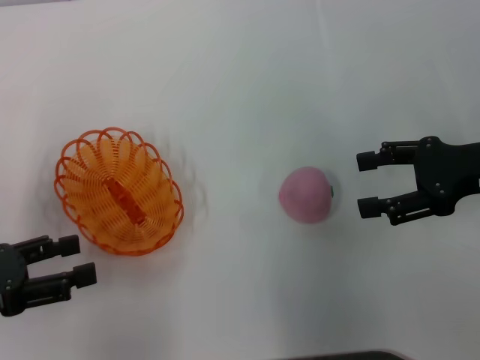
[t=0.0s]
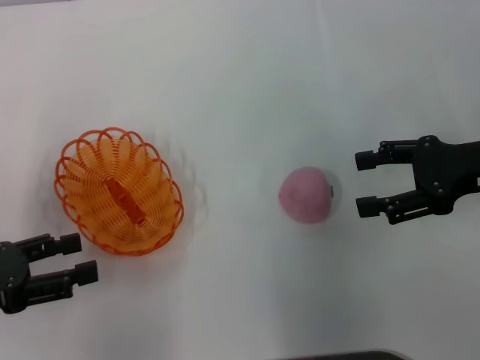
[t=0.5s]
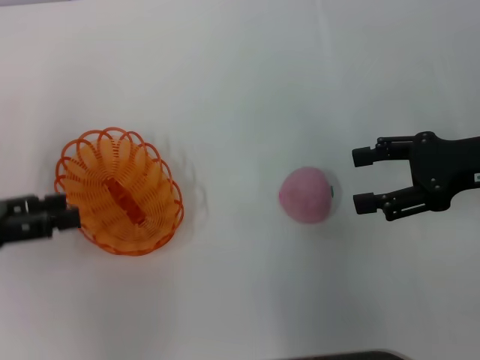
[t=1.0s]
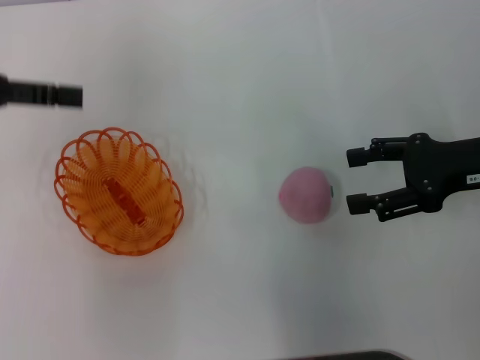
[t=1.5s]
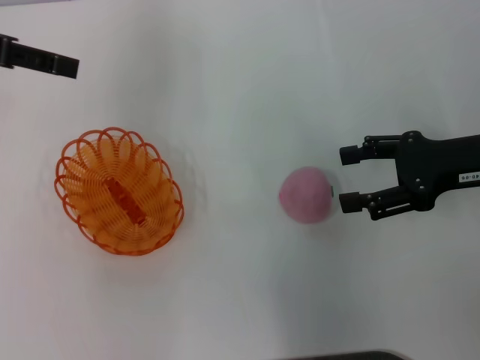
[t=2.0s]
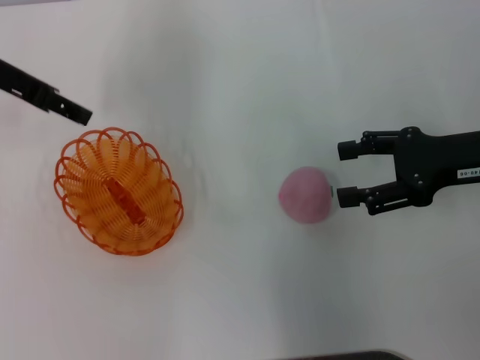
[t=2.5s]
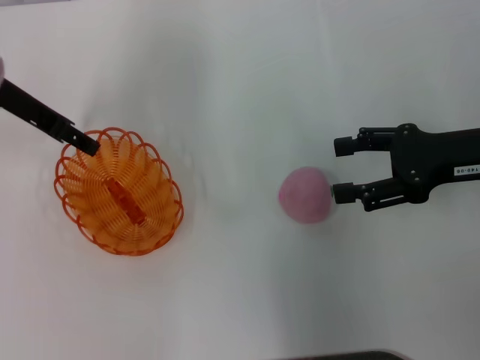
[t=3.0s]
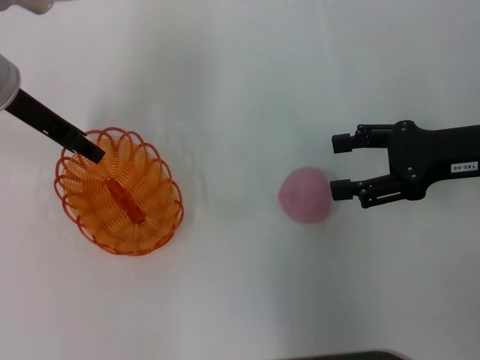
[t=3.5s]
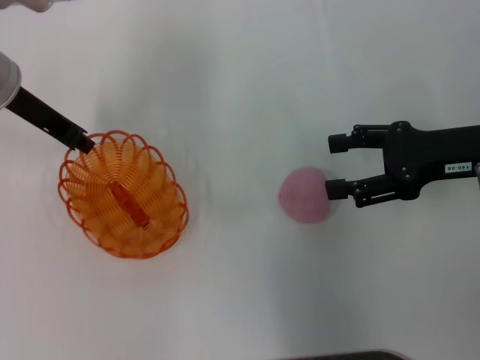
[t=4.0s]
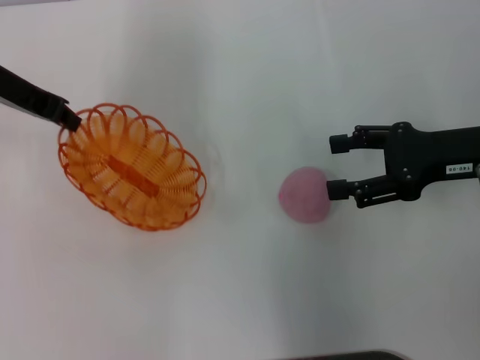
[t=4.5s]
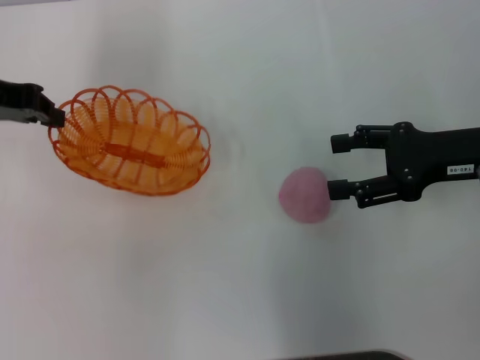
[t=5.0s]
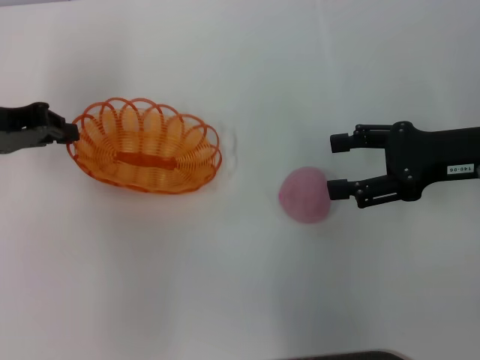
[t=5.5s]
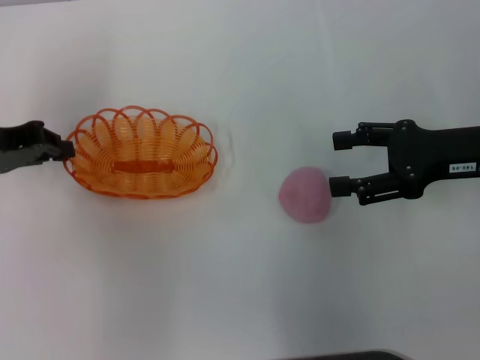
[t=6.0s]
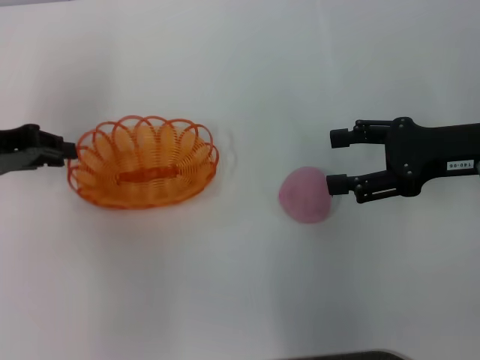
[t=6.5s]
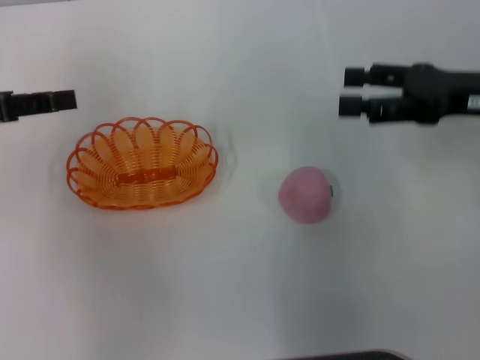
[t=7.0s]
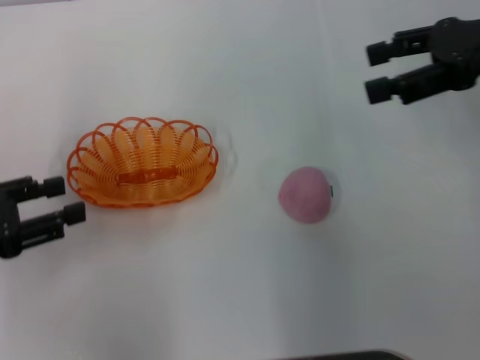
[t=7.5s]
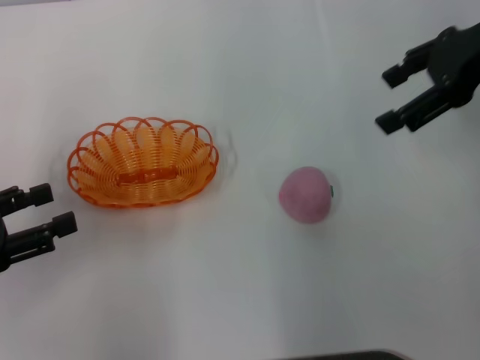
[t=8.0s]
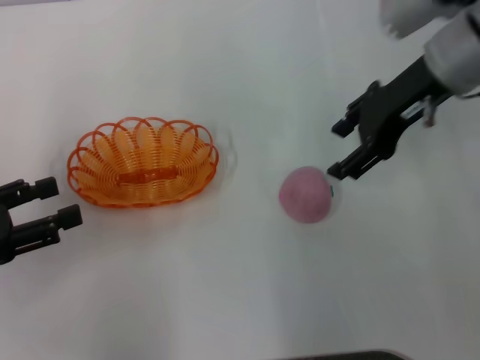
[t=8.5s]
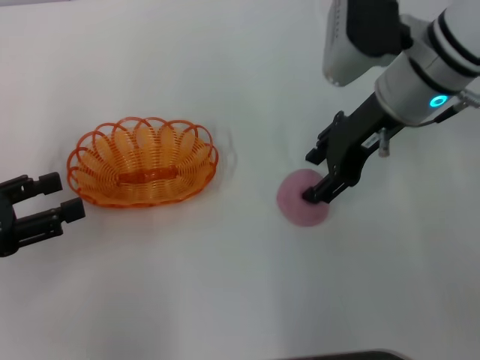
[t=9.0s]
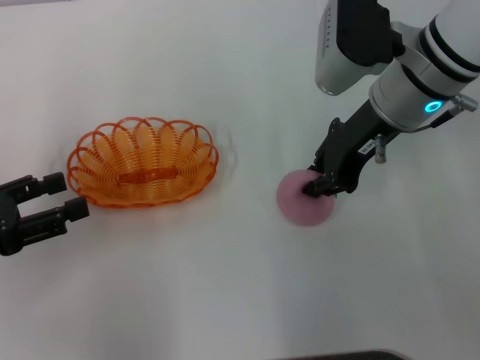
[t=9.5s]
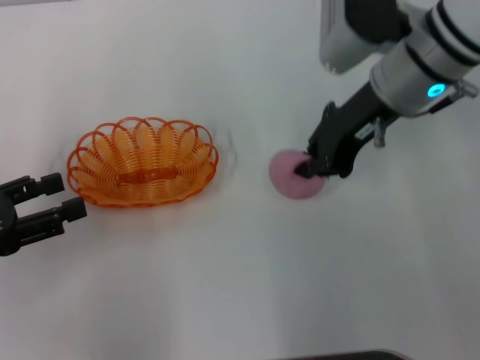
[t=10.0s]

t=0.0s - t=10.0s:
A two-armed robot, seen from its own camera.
Step, t=0.0s - t=4.0s: Pick up the basket with the left gripper.
Step, t=4.5s - t=6.5s: Place the basket in the center of view with the left gripper.
t=0.0s - t=2.0s: The left gripper heads forward and upward, covering about 25 cm.
t=2.0s - t=4.0s: The left gripper moves downward and to the right, some 10 cm, and closes its fingers.
t=4.0s - t=6.0s: The left gripper heads to the left and backward, covering about 10 cm.
t=6.0s - t=8.0s: The right gripper is displaced upward and forward by roughly 15 cm. The left gripper is displaced backward by roughly 15 cm, and opens.
t=8.0s - t=10.0s: The right gripper moves to the left and downward, some 15 cm, and closes its fingers.

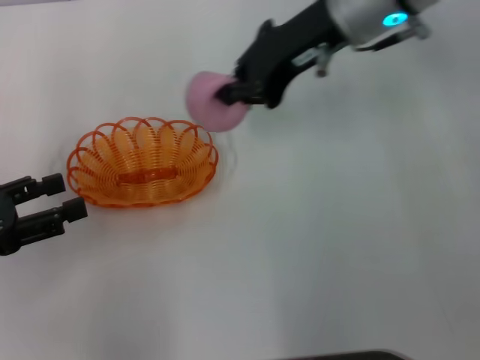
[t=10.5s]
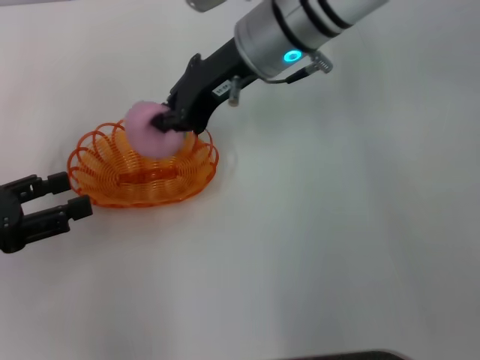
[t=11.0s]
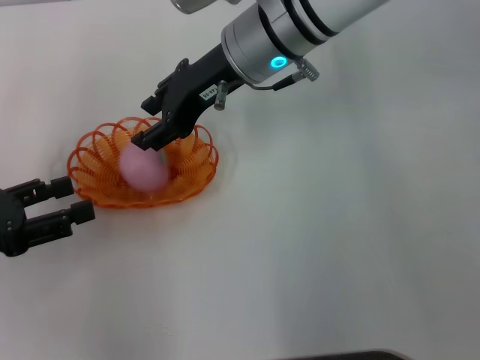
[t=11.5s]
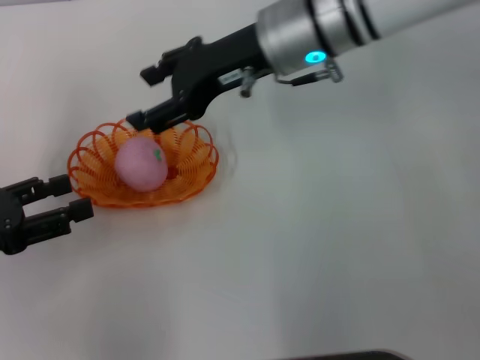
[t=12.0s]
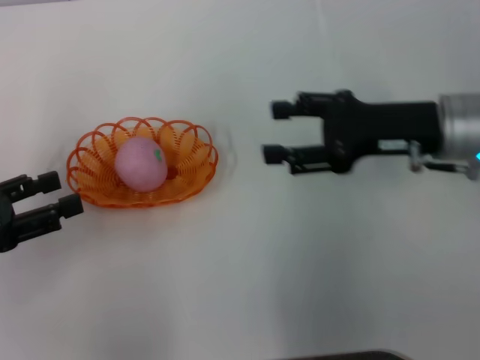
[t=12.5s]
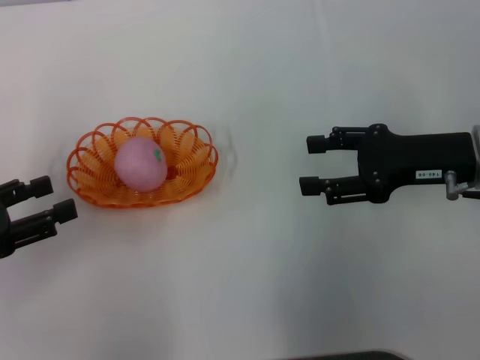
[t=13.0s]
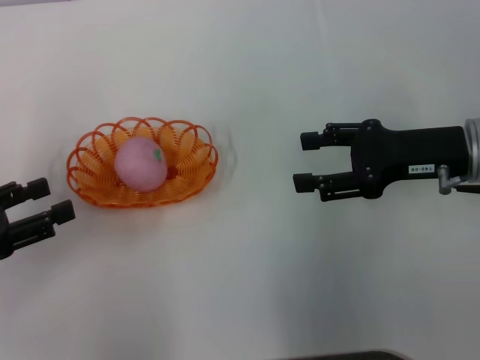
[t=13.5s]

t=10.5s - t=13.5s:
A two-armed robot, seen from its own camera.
Step, t=10.5s - t=11.5s: Place the peach into the basket with the right gripper.
t=10.5s - t=12.0s: The right gripper opens.
t=12.0s - t=13.5s: The right gripper shifts some 20 cm to the right, backward and downward.

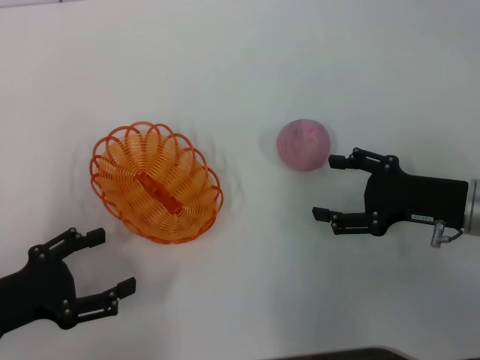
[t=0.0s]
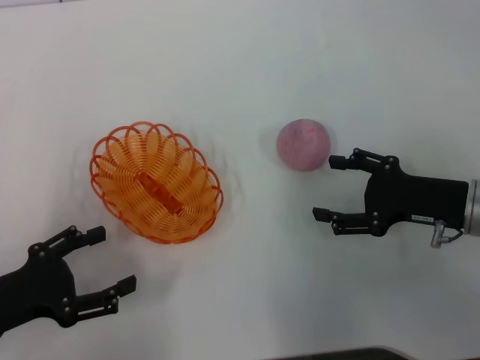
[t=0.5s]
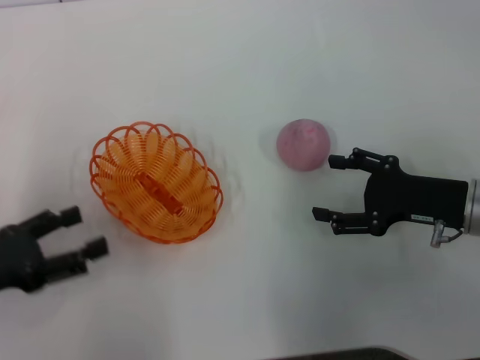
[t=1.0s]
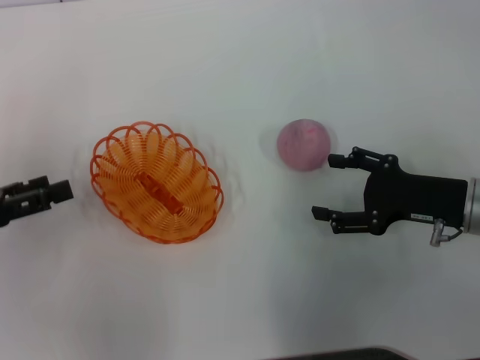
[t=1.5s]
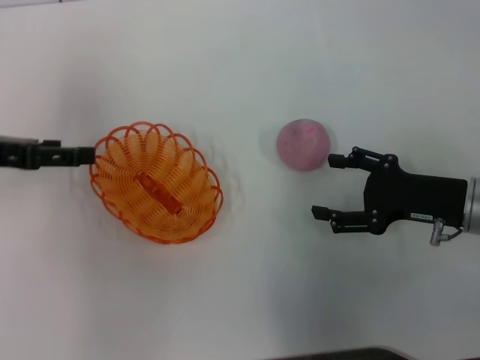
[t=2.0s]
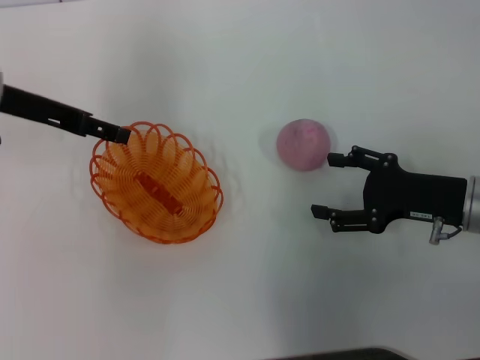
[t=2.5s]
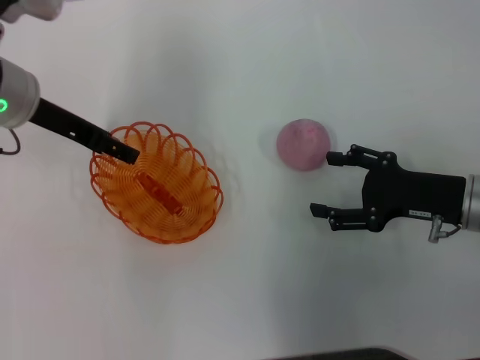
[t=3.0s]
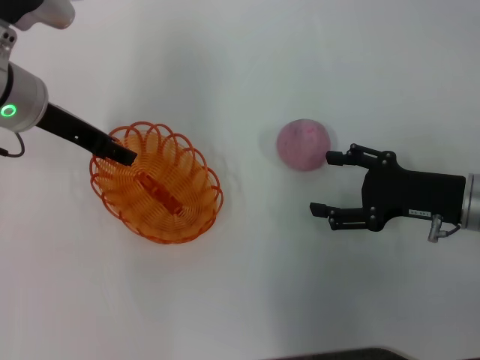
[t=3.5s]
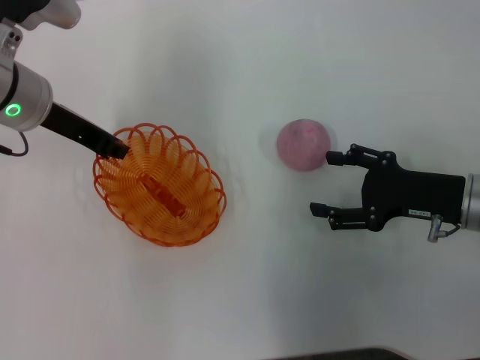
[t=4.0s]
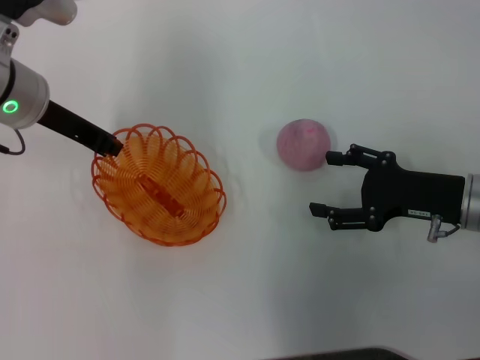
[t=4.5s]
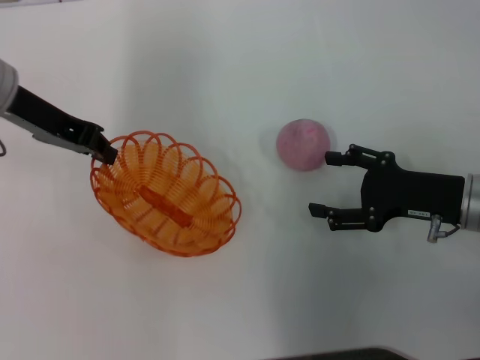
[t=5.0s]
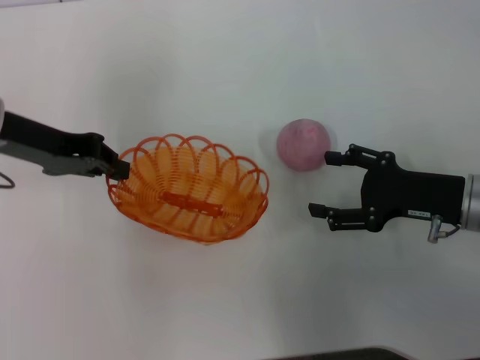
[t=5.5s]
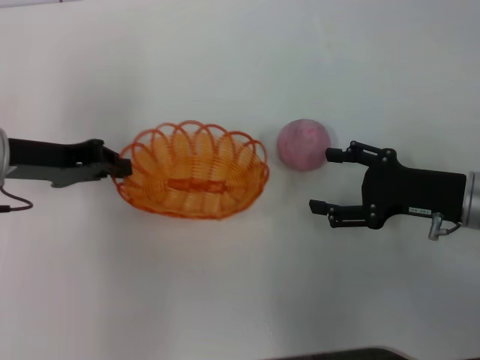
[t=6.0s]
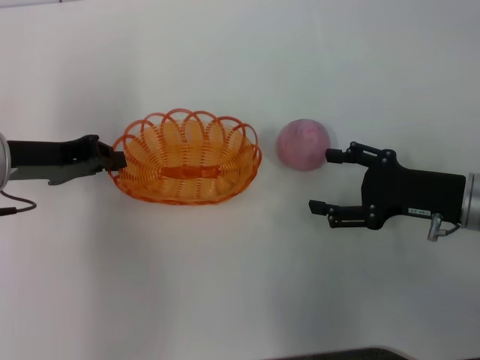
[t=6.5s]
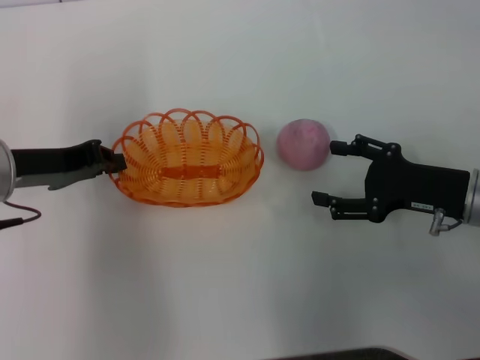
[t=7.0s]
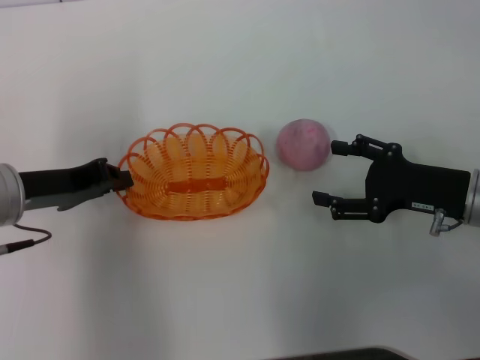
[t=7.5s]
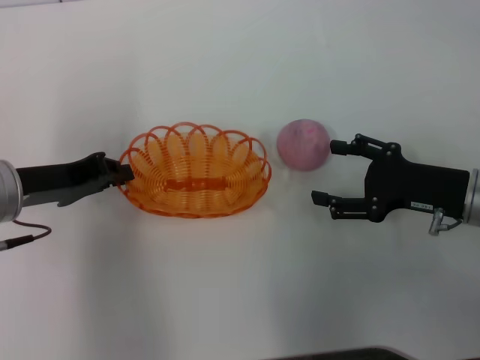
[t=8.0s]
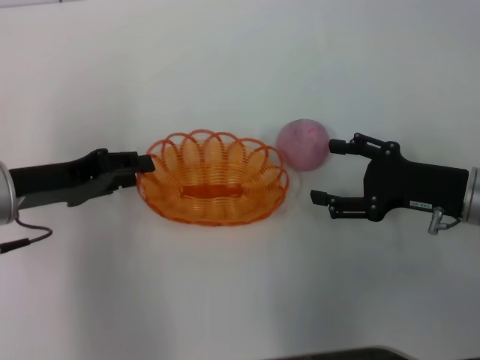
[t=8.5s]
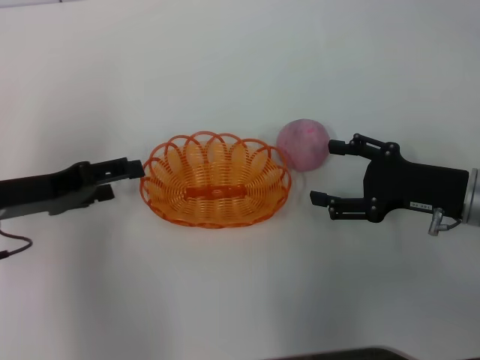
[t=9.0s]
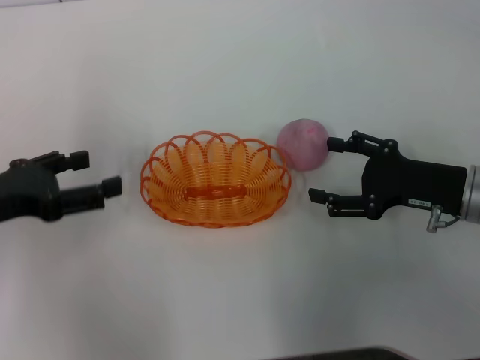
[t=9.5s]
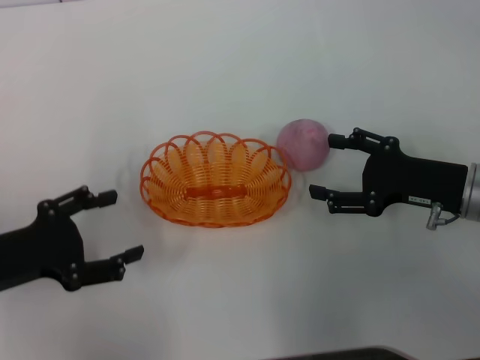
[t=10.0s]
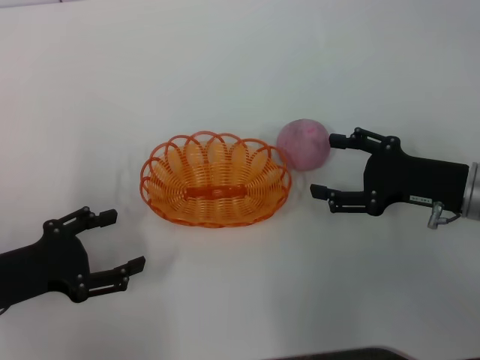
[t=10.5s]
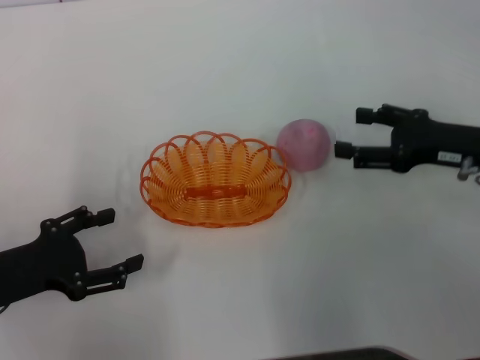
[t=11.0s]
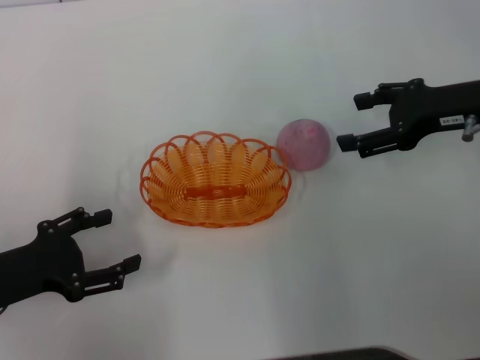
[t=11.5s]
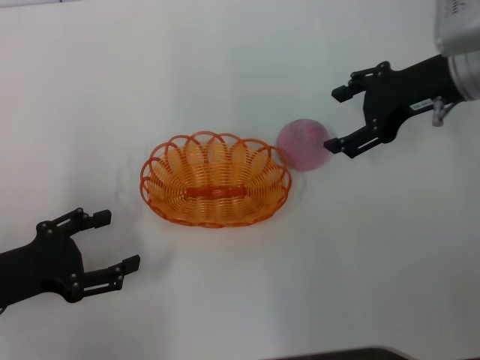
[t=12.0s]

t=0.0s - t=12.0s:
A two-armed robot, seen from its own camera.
Step, t=0.0s - t=5.0s: Pick up the basket with the left gripper.
Step, t=5.5s - t=9.5s: Place the basket in the center of view with the left gripper.
t=0.0s - t=2.0s: The left gripper goes about 15 cm forward and upward.
t=2.0s - t=4.0s: The left gripper travels to the right and forward by some 15 cm, and closes up.
t=4.0s - t=6.0s: The left gripper goes about 5 cm to the left and backward, and closes.
t=6.0s - t=8.0s: There are only small adjustments of the grippers.
t=8.0s - t=10.0s: The left gripper moves backward and to the left, roughly 10 cm, and opens.
t=10.0s - t=12.0s: The right gripper heads upward and forward, covering about 15 cm.
